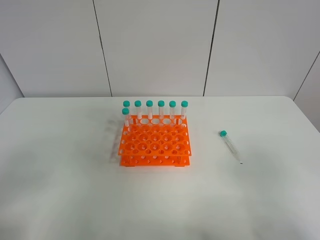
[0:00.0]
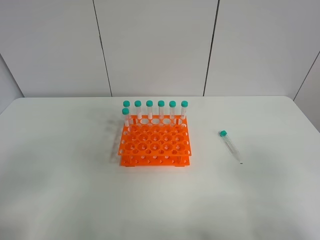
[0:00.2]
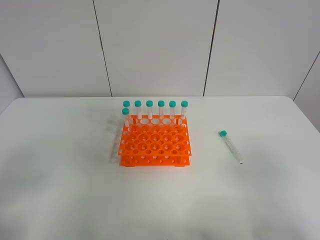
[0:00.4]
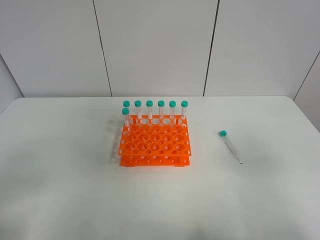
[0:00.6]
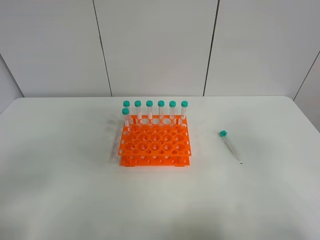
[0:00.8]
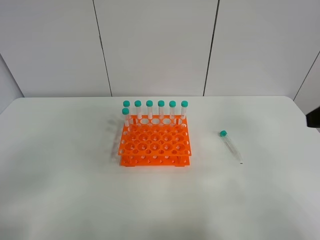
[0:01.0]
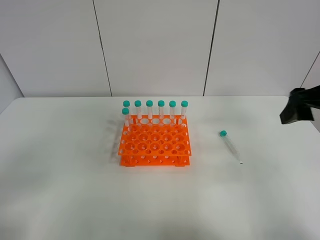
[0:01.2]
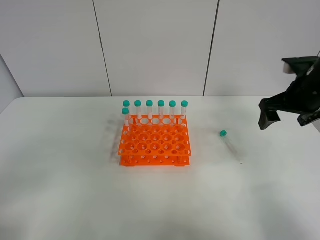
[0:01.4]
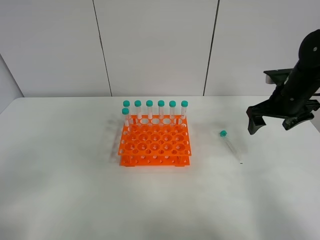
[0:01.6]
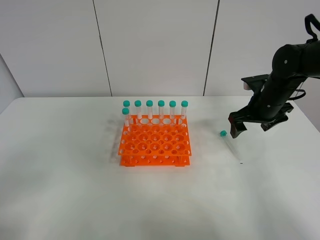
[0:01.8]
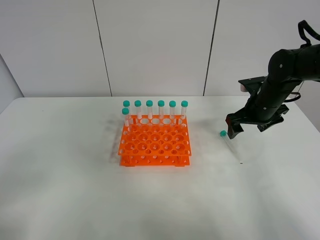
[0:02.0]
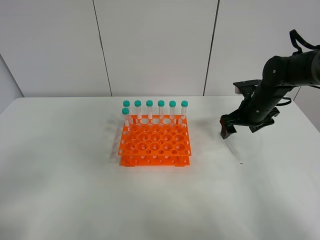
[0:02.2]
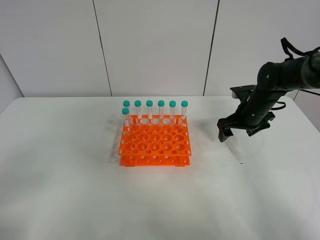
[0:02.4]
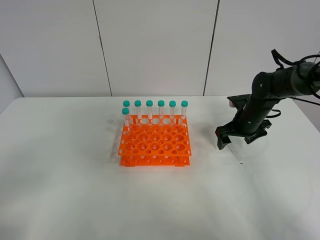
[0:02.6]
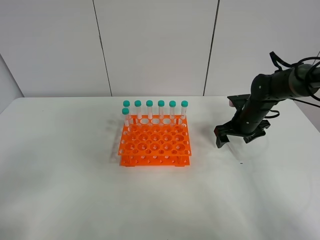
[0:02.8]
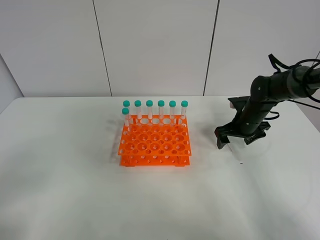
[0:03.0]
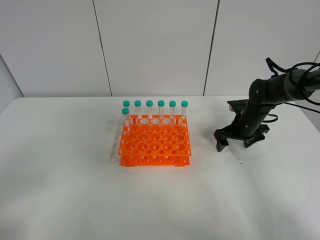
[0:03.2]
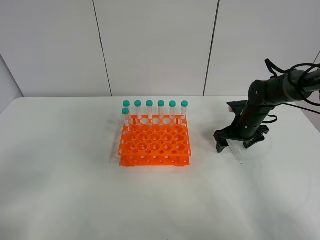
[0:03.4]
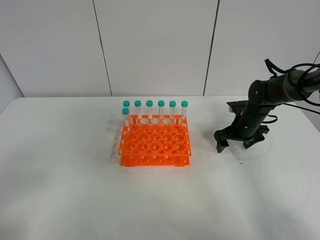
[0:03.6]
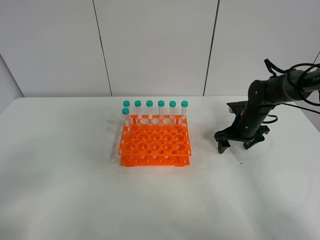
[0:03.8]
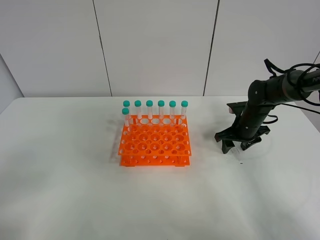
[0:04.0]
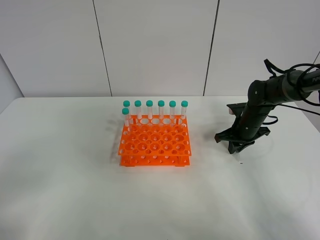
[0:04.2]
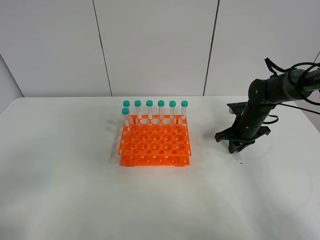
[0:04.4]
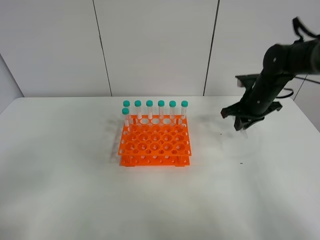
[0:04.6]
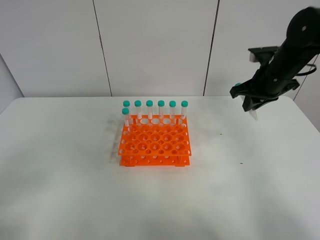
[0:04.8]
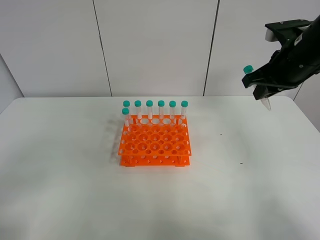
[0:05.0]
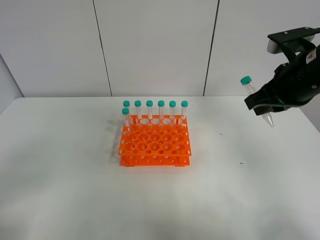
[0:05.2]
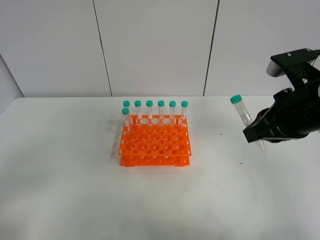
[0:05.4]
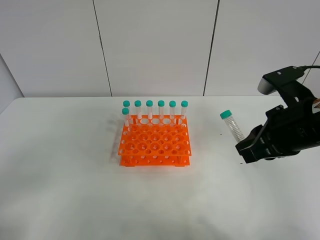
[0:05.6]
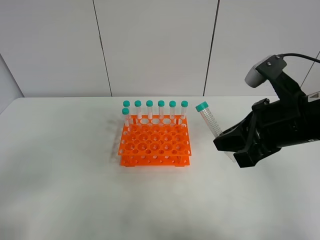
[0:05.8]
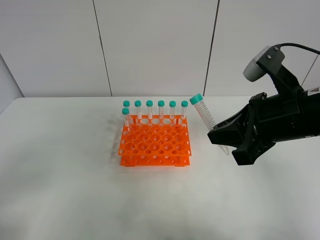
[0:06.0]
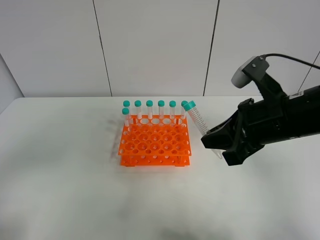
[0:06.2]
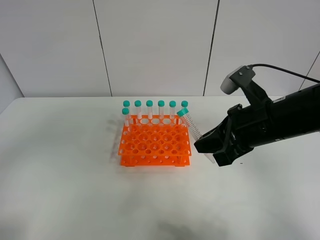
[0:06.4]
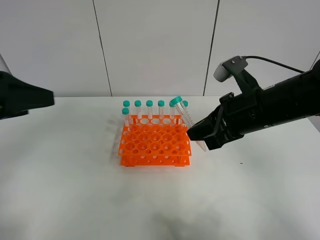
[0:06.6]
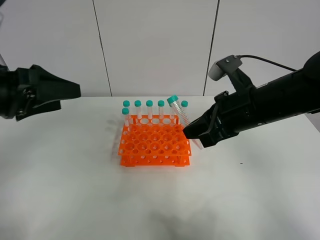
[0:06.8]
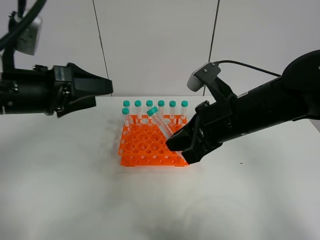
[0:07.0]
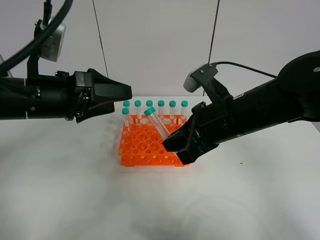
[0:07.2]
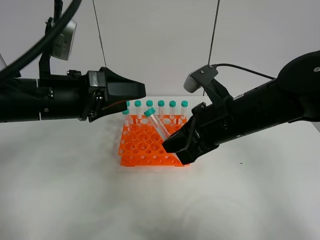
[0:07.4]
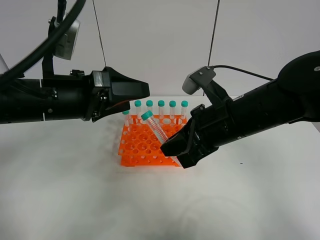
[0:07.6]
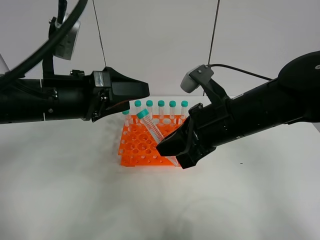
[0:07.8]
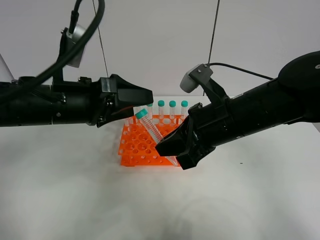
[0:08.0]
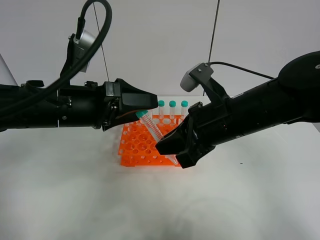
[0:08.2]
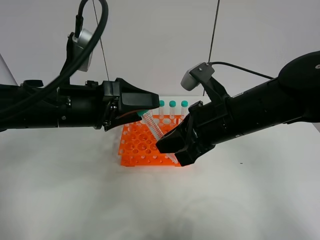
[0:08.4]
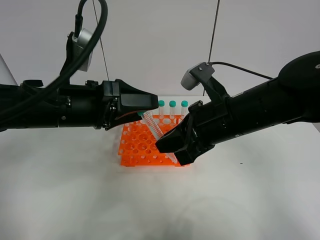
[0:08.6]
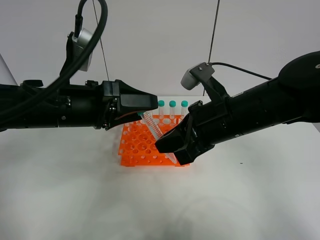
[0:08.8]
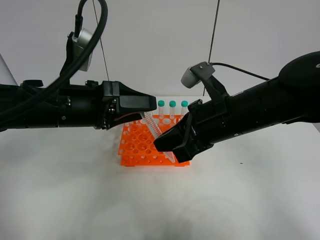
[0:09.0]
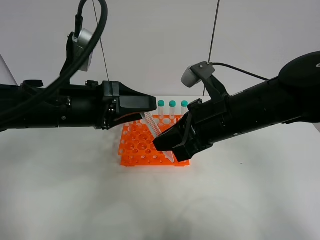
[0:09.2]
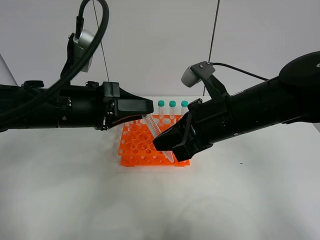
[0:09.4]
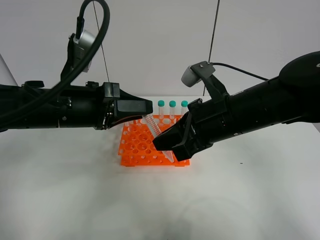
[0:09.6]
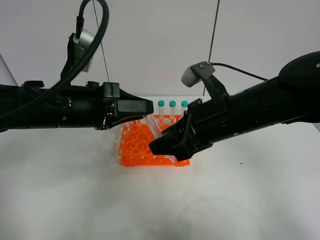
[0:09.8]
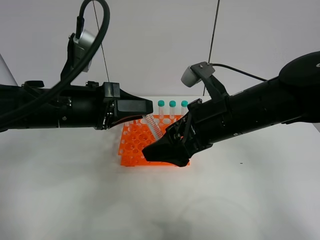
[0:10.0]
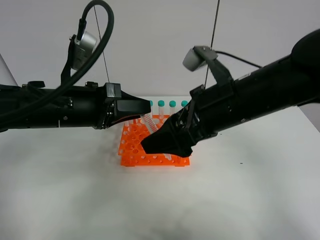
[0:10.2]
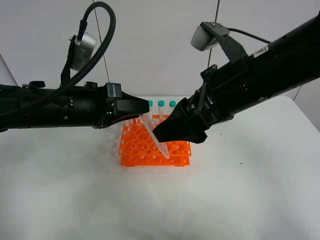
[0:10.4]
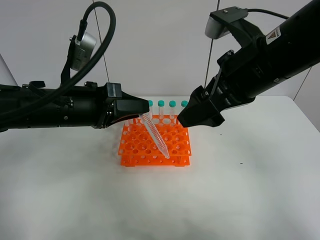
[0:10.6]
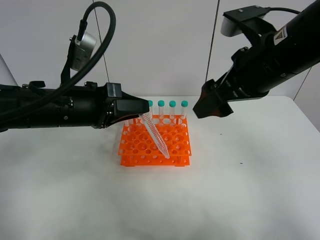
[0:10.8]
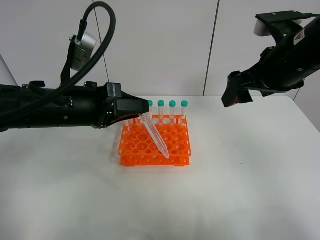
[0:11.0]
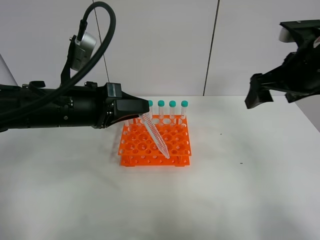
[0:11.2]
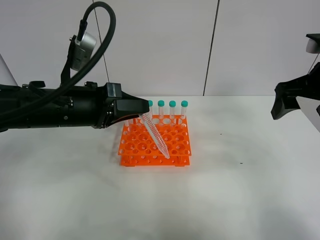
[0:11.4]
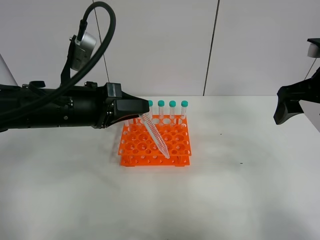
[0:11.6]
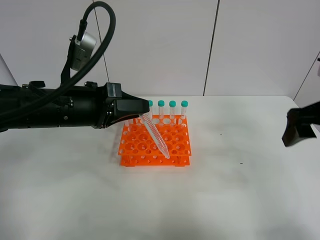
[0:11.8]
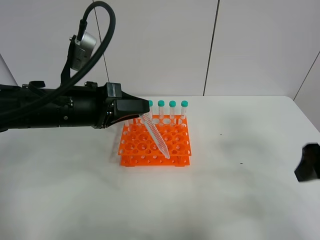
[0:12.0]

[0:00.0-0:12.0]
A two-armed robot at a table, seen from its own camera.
Task of the whole recording: Put the test tube on the table back onto the test tube rack.
Step, 0:00.0 to 0:04.8: Pick up the test tube with the right gripper.
Step, 0:05.0 to 0:10.8: Move the test tube from the right gripper to the left gripper.
0:00.0 to 0:01.6: The right gripper heads forward, covering some 35 cm.
0:01.6 to 0:03.0: The right gripper is displaced downward by roughly 10 cm.
0:03.0 to 0:04.4: The right gripper closes its fingers.
0:04.4 to 0:06.0: The right gripper is displaced backward and upward by some 25 cm.
0:06.0 to 0:07.6: The left gripper shifts roughly 25 cm forward and to the right, while the right gripper goes approximately 5 cm to the left.
0:07.6 to 0:09.0: The left gripper closes its fingers.
0:09.0 to 0:10.4: The left gripper closes. Meanwhile the right gripper goes approximately 5 cm upward, and opens.
0:10.4 to 0:12.0: The right gripper moves to the right and backward, roughly 20 cm.

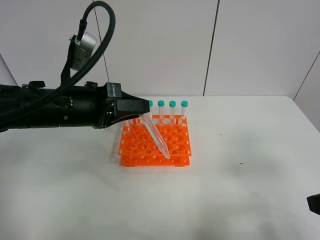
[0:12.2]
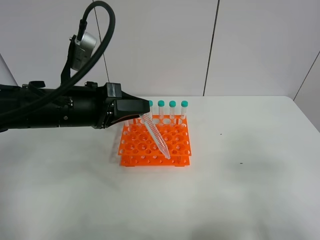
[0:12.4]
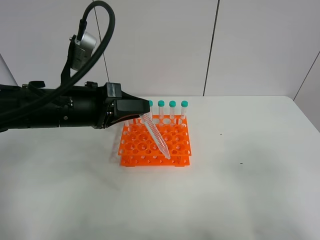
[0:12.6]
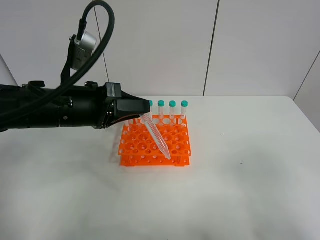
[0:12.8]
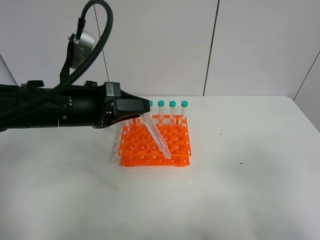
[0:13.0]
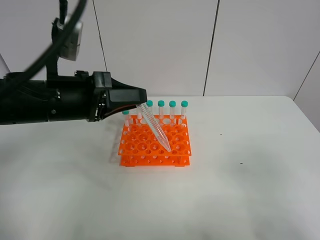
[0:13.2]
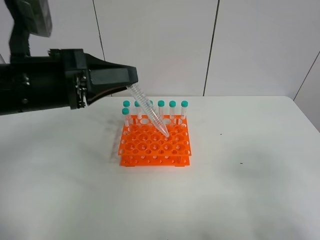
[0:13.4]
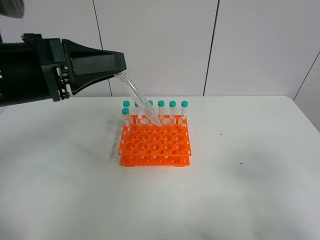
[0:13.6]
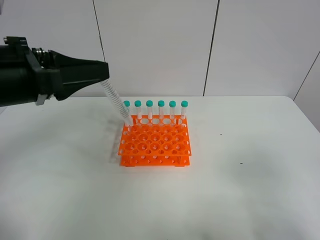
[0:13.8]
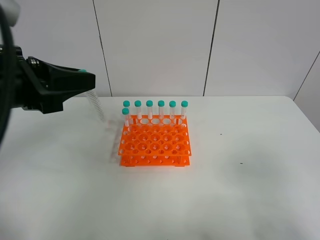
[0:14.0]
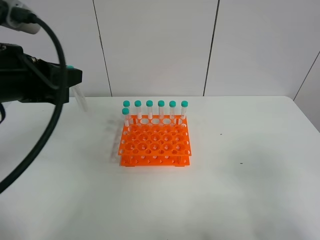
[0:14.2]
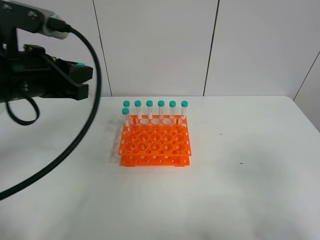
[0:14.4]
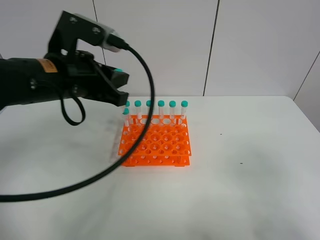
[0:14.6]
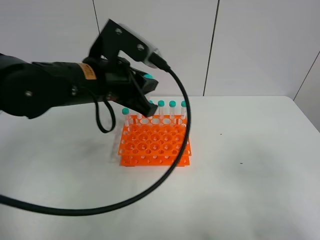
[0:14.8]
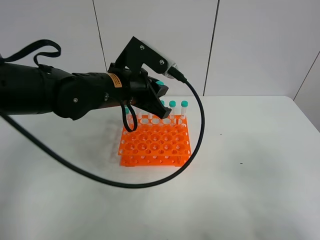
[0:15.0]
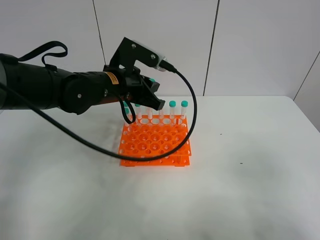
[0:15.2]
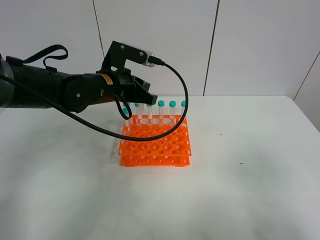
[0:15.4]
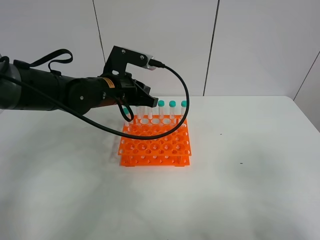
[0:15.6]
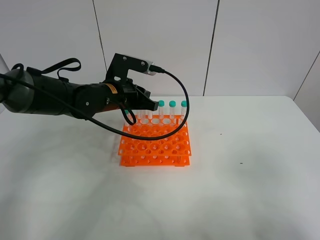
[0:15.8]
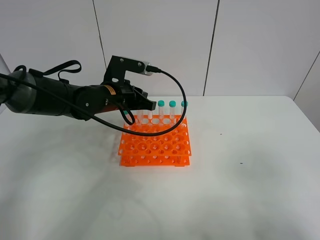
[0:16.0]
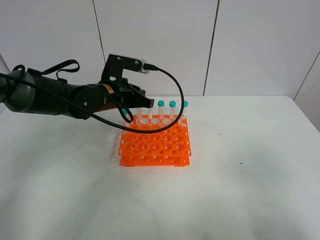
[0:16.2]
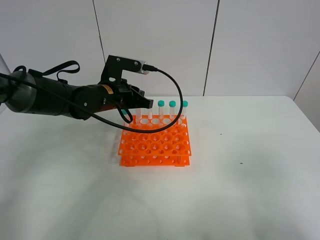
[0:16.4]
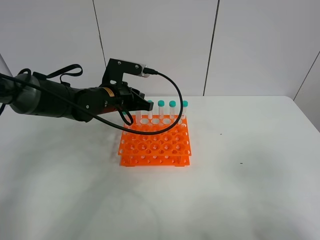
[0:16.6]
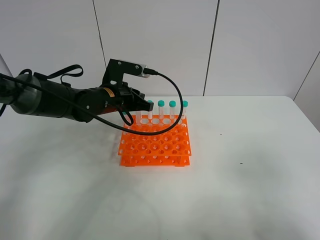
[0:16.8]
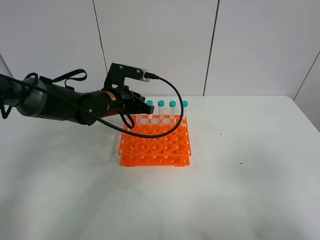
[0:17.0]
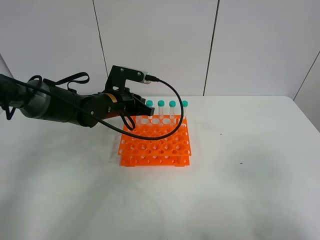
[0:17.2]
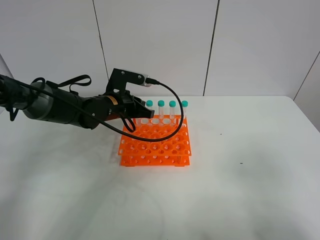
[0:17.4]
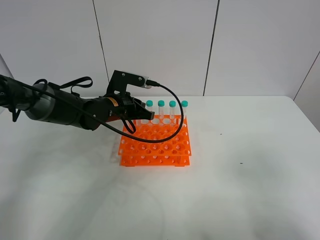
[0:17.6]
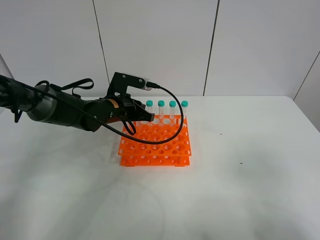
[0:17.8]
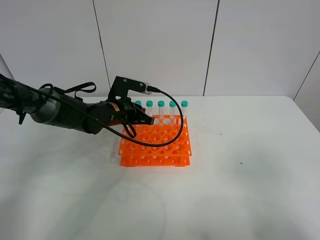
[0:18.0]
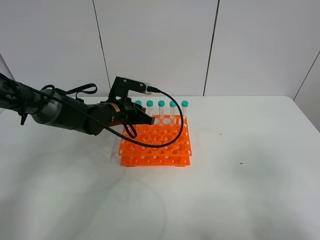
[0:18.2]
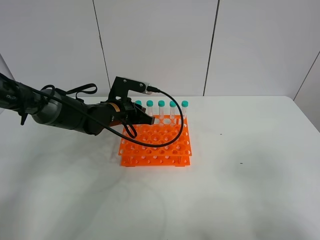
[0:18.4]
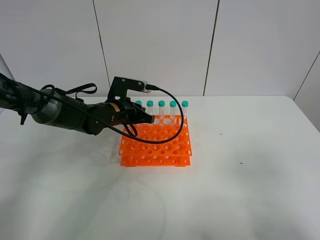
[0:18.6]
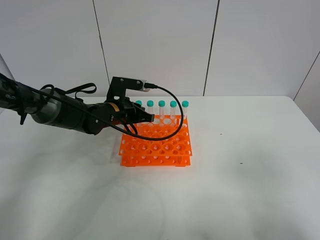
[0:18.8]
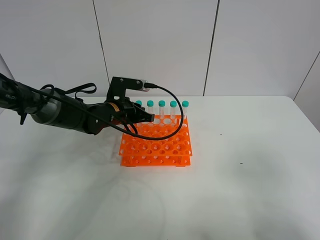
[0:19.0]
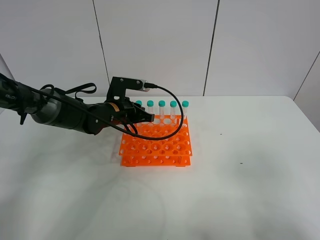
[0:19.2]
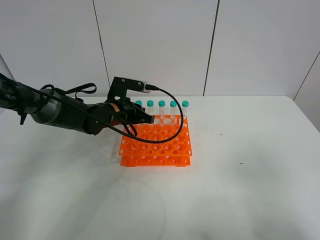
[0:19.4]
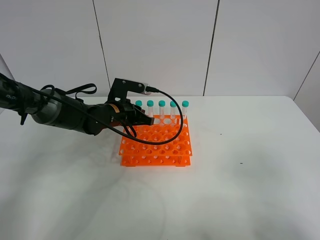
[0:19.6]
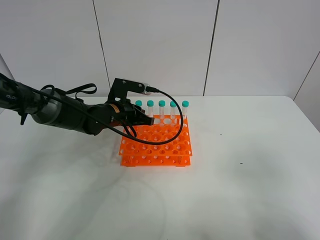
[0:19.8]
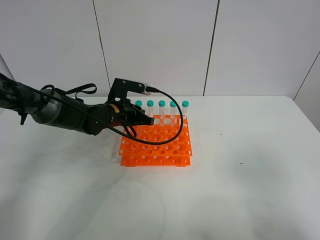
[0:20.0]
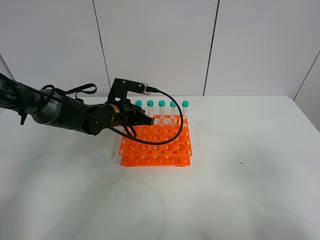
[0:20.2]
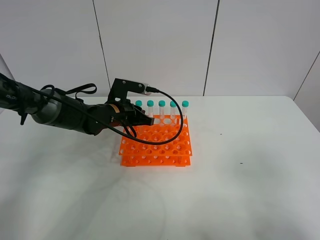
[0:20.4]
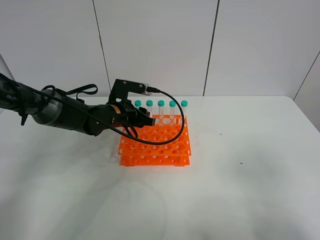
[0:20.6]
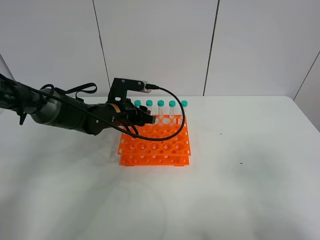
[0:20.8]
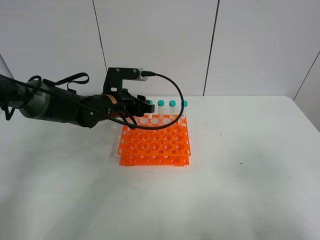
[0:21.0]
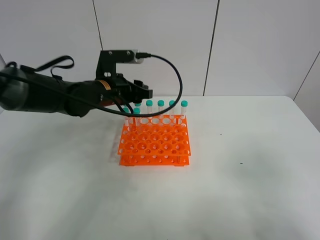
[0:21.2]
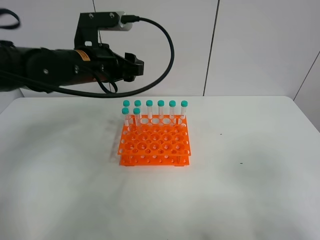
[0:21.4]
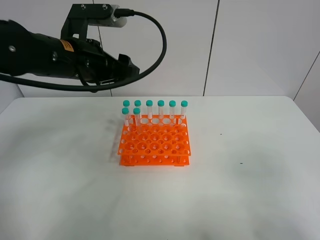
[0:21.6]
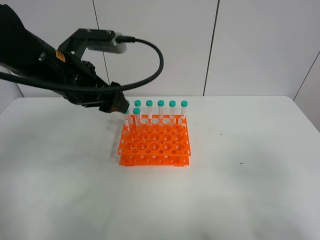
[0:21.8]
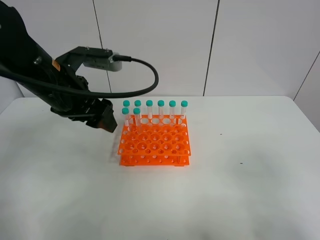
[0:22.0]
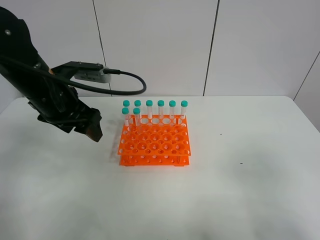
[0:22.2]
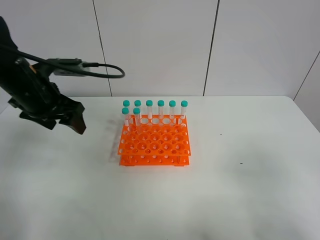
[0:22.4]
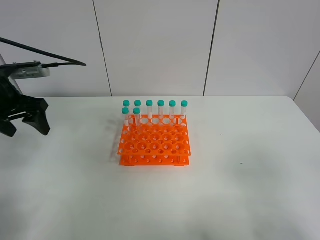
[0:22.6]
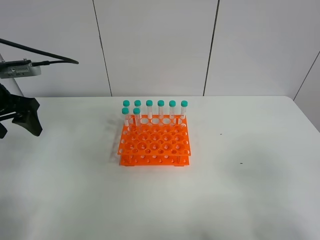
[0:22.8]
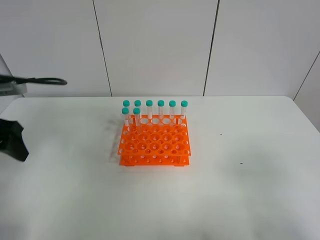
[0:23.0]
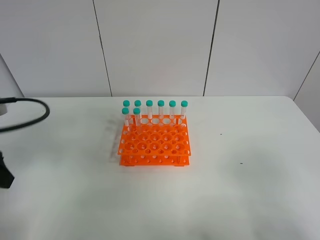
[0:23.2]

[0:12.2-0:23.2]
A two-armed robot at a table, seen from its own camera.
Task of the whole recording: Put the test tube on the table back onto the test tube rack.
Step, 0:12.2 to 0:21.2: Place the test tube on the test tube rack with the left gripper.
0:12.2 to 0:13.8: The right gripper shifts approximately 5 cm backward. Meanwhile the left gripper is displaced upward and backward by roughly 10 cm.
0:13.8 to 0:15.4: The left gripper shifts some 20 cm forward, downward and to the right.
0:15.4 to 0:17.0: The left gripper travels downward by about 5 cm.
0:17.0 to 0:20.0: There are only small adjustments of the grippers.
0:20.0 to 0:21.6: The left gripper is displaced upward and backward by some 20 cm, and opens.
0:21.6 to 0:23.2: The left gripper moves to the left and backward, about 20 cm.
